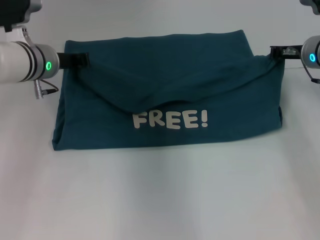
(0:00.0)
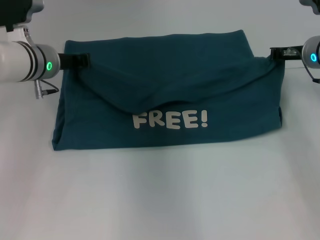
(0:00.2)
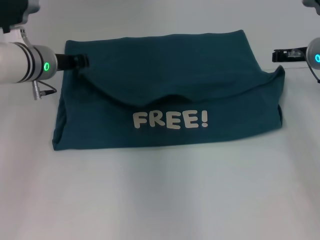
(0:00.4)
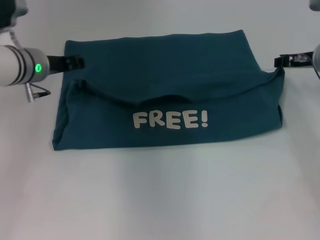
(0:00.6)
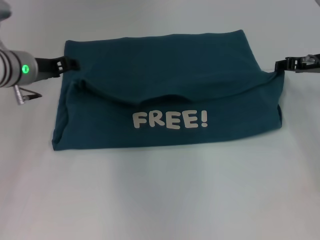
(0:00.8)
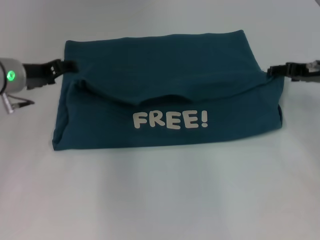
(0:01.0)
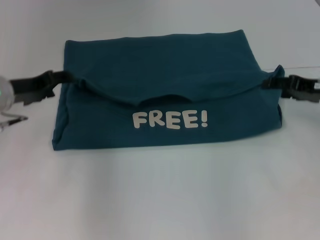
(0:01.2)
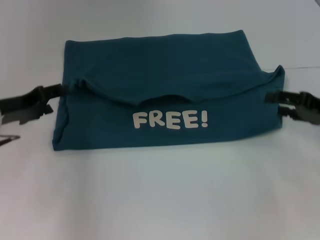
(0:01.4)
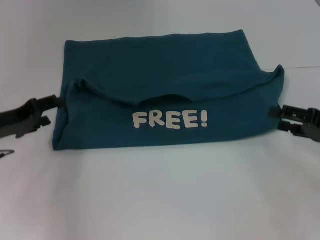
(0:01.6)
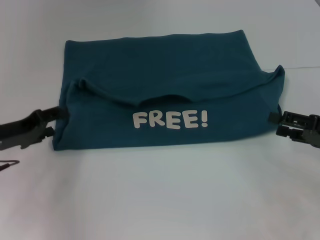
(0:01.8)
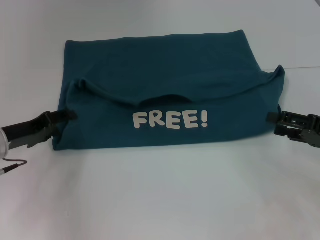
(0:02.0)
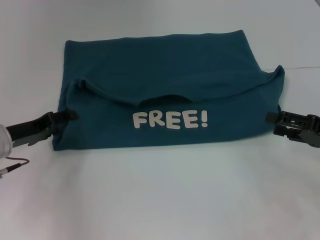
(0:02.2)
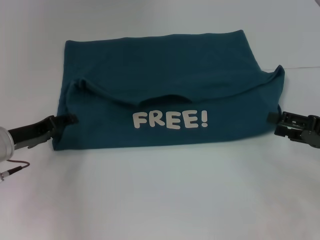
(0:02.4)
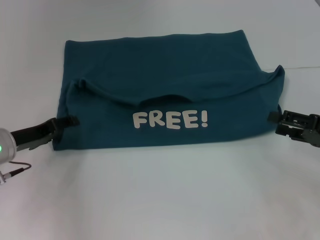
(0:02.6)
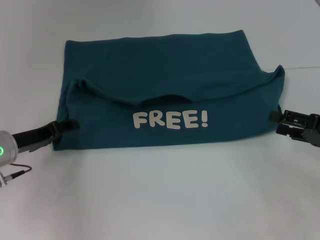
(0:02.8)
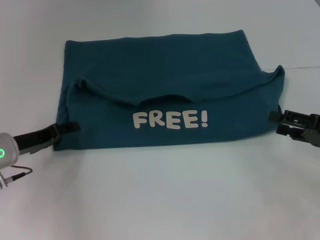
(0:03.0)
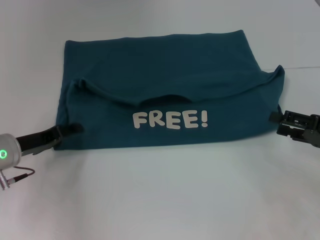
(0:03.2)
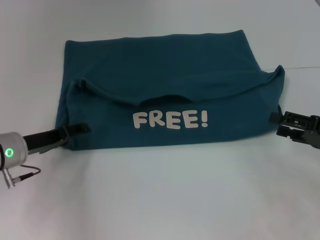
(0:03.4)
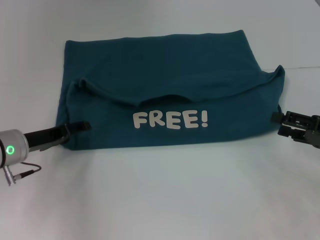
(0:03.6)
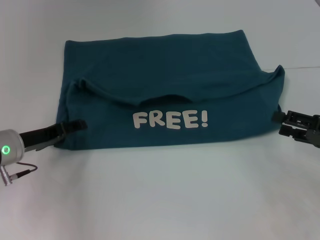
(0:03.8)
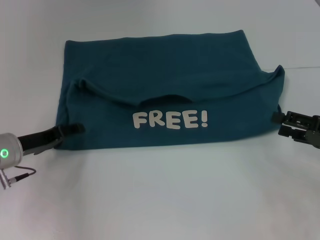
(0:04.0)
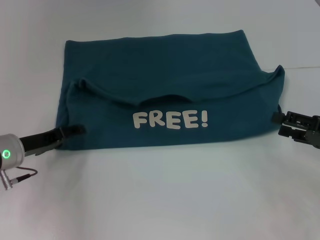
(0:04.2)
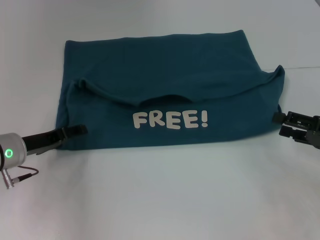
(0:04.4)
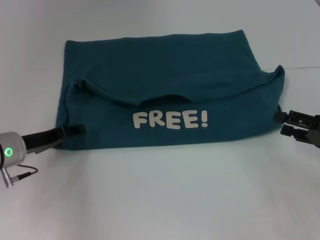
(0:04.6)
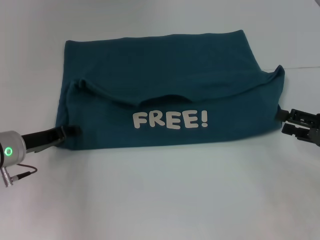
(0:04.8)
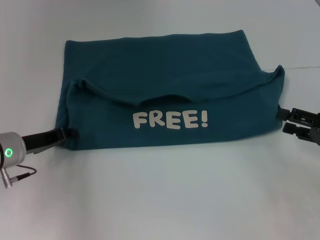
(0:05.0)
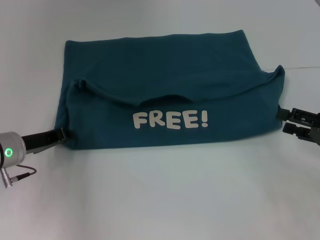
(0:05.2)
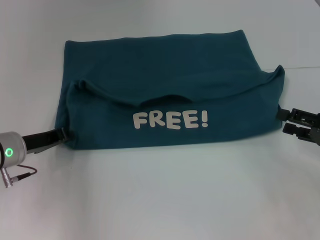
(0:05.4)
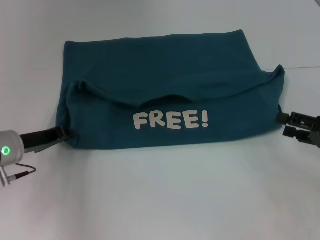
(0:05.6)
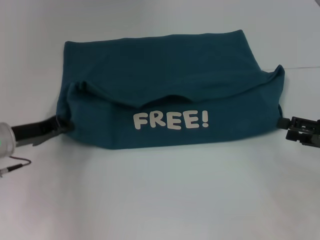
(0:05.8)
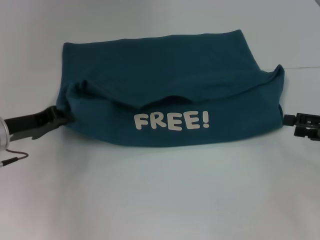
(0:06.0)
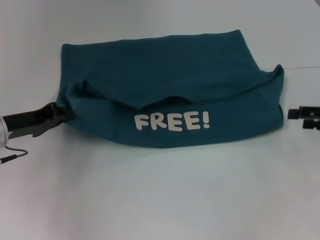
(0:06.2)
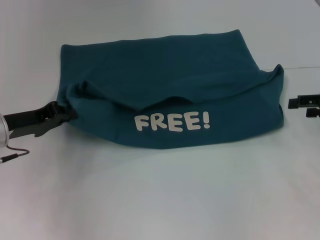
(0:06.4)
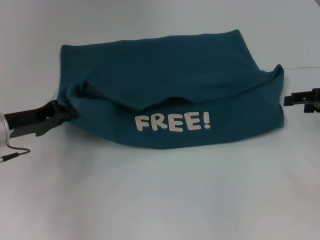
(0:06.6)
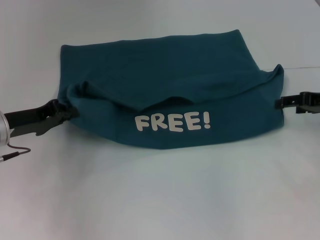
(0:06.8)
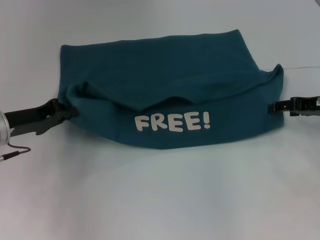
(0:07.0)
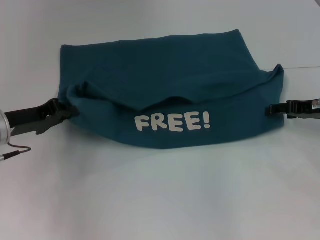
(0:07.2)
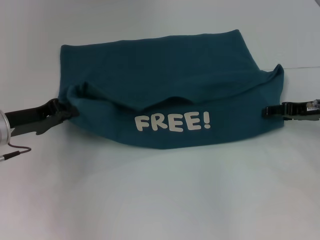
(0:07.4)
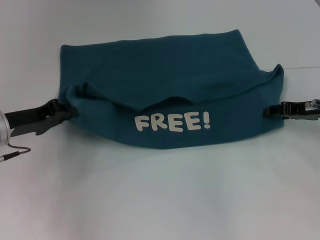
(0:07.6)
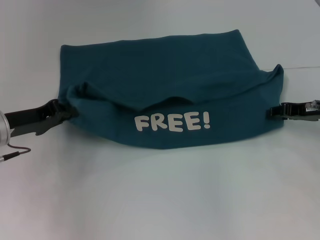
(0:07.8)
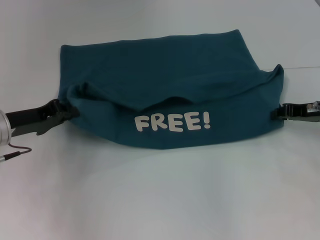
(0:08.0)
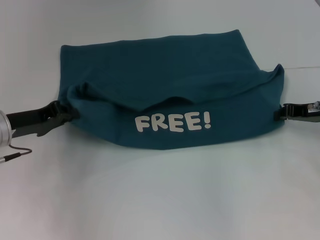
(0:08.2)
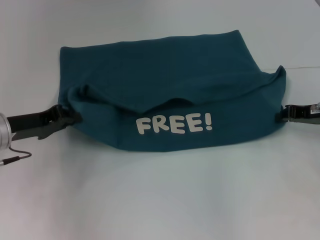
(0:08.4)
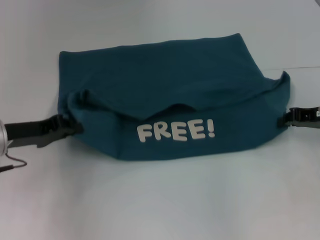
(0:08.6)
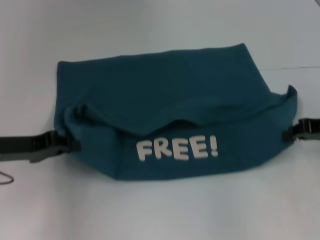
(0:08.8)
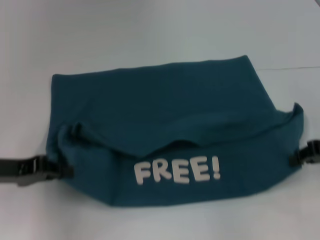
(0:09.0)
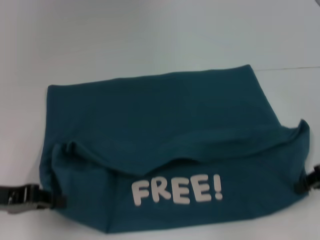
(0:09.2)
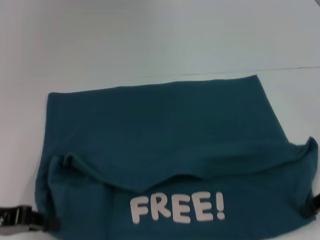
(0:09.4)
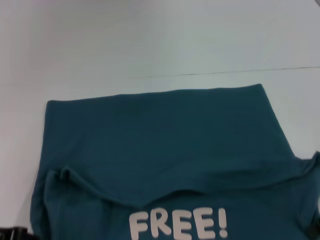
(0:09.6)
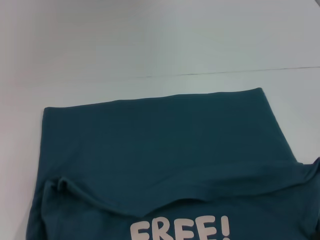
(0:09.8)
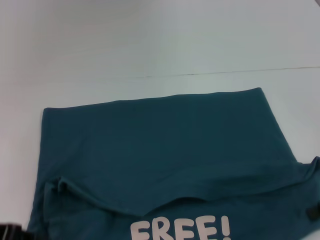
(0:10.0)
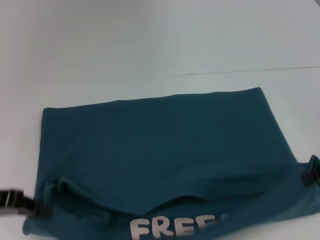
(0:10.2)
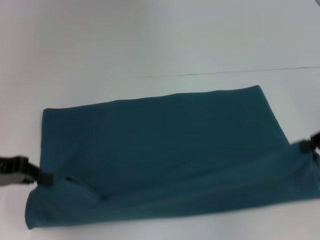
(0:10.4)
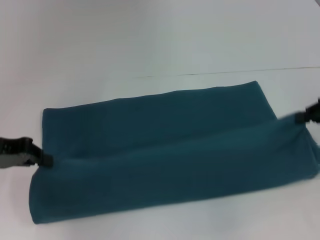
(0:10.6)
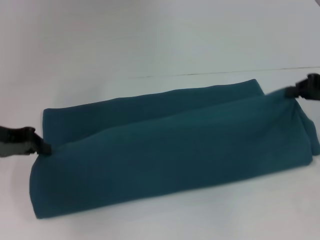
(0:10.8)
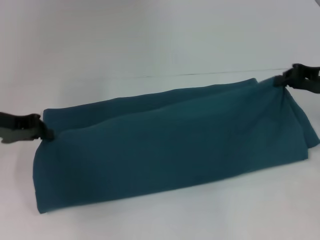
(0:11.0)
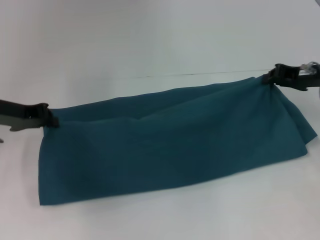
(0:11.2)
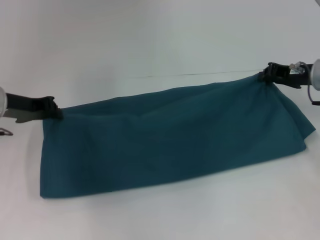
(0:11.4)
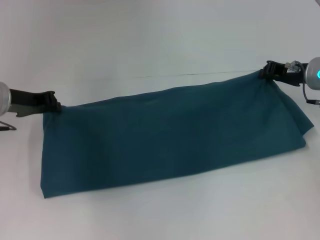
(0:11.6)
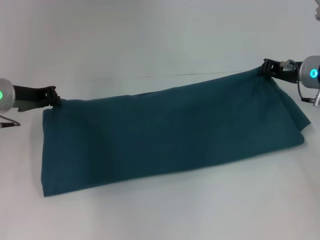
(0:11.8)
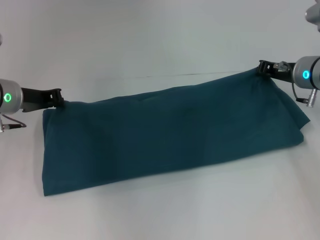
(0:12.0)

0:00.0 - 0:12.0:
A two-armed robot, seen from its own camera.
Step, 0:00.6 - 0:09.6: Pull the clothes with your left hand.
Step, 0:00.6 - 0:09.6: Pull the clothes with your right hand.
0:00.0 - 0:01.6: The left gripper is displaced backward, to the left and downward by about 15 cm, and opens its fingers; the right gripper goes some 20 cm backward and to the right, and opens.
0:01.6 - 0:04.4: The grippers stay close to where they were, moving slightly.
0:04.4 - 0:06.0: The left gripper closes up.
0:06.0 - 0:07.6: The right gripper moves forward and to the left, roughly 10 cm.
0:07.6 - 0:09.0: The grippers both shift backward by roughly 5 cm. The right gripper closes its fingers.
0:09.0 - 0:10.4: The left gripper travels backward and back again, approximately 5 cm each way.
0:10.4 - 0:12.0: The left gripper goes roughly 10 cm forward and to the right; the right gripper goes some 15 cm forward and to the left.

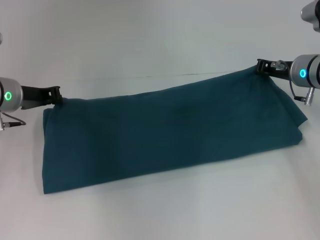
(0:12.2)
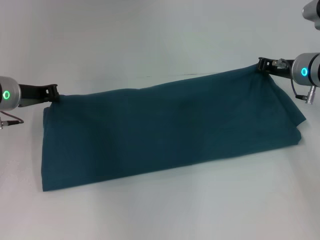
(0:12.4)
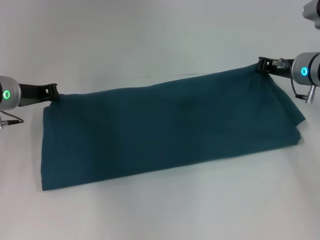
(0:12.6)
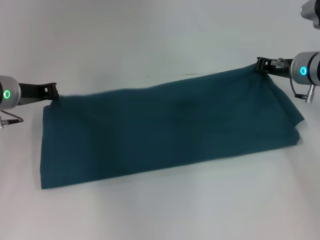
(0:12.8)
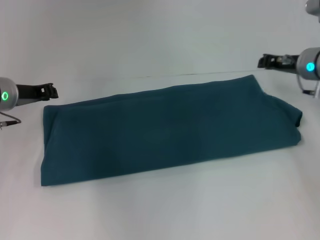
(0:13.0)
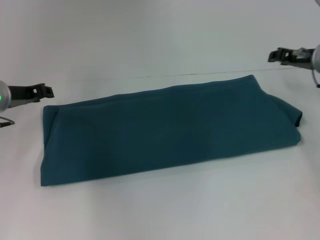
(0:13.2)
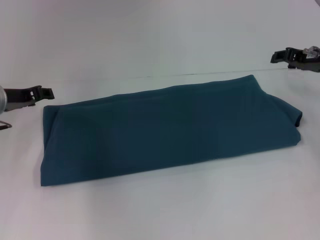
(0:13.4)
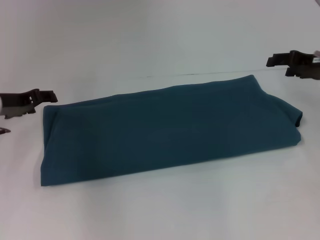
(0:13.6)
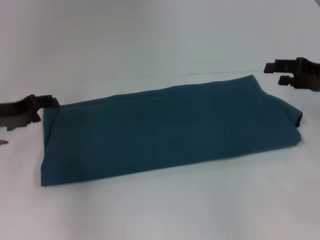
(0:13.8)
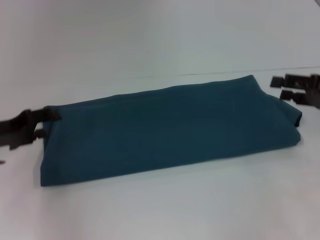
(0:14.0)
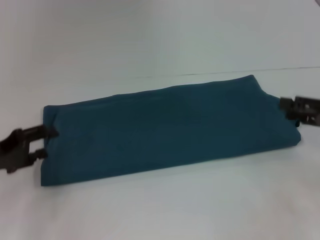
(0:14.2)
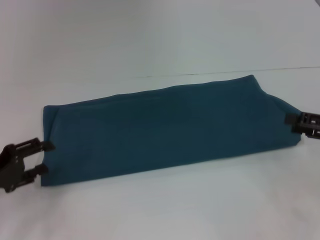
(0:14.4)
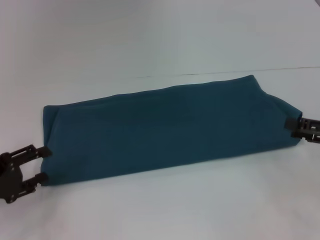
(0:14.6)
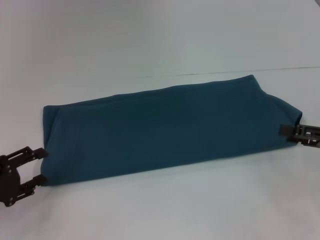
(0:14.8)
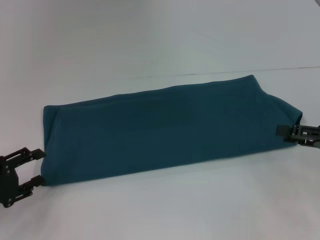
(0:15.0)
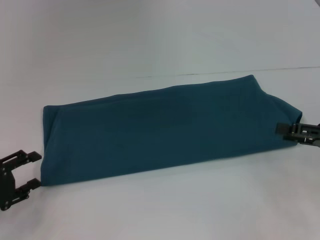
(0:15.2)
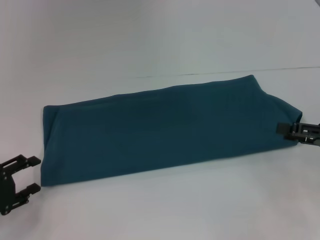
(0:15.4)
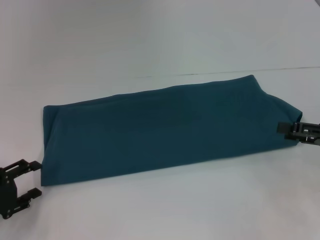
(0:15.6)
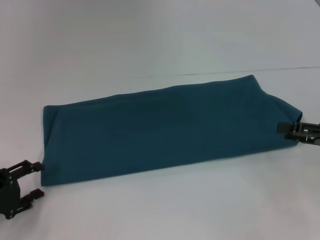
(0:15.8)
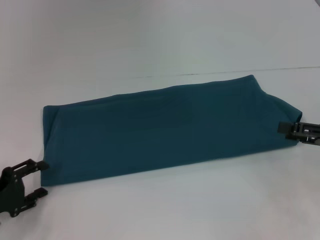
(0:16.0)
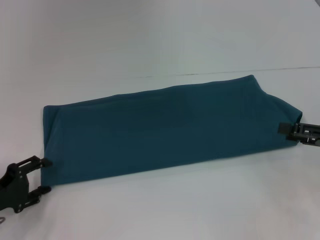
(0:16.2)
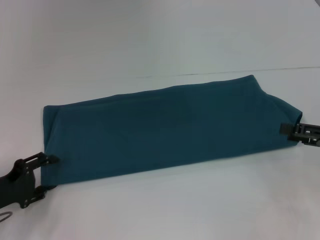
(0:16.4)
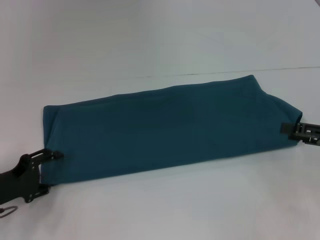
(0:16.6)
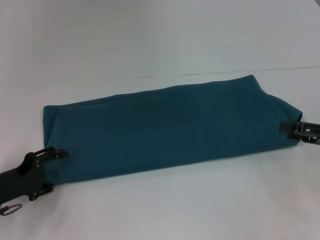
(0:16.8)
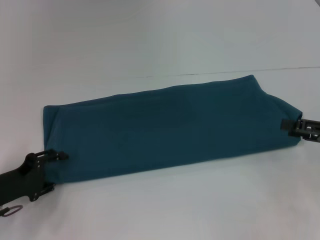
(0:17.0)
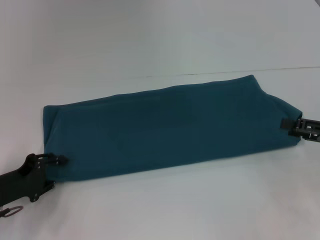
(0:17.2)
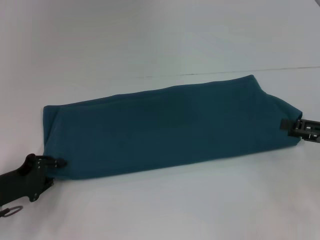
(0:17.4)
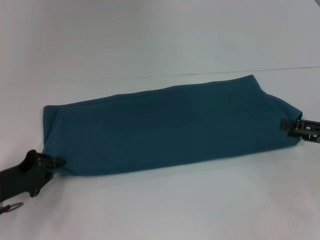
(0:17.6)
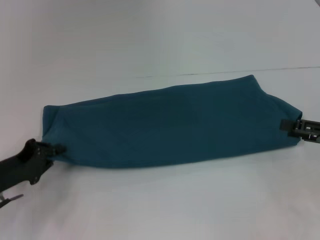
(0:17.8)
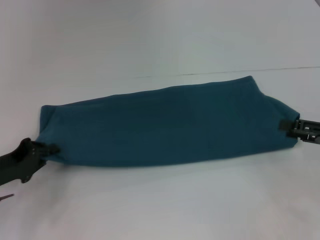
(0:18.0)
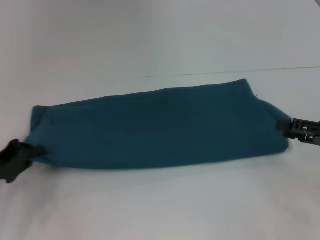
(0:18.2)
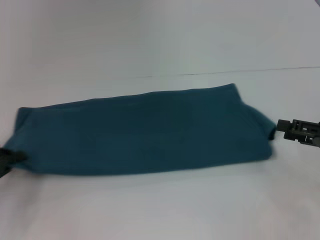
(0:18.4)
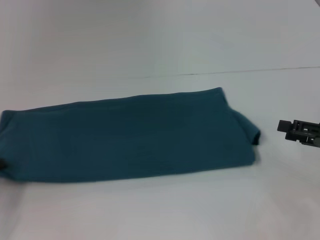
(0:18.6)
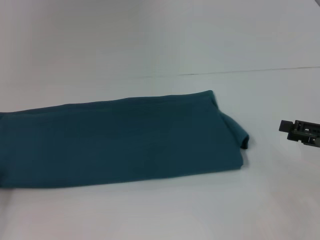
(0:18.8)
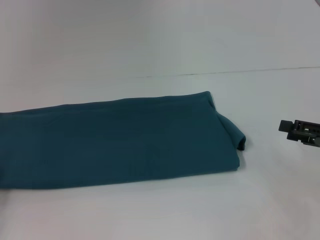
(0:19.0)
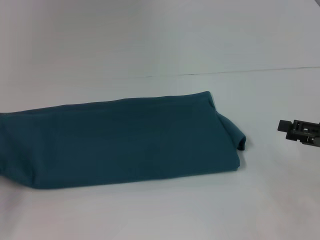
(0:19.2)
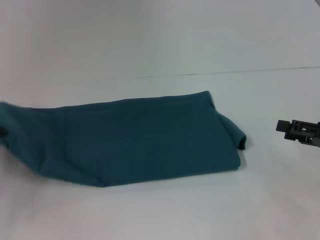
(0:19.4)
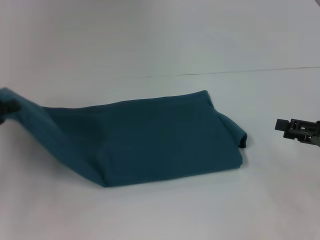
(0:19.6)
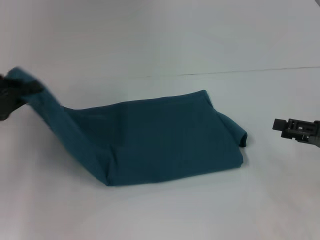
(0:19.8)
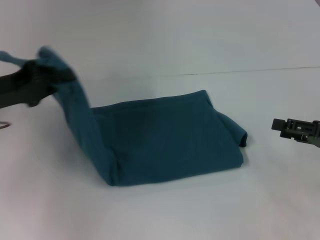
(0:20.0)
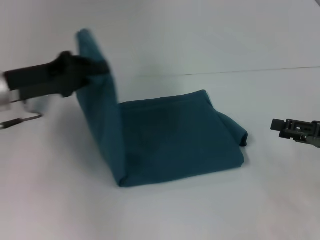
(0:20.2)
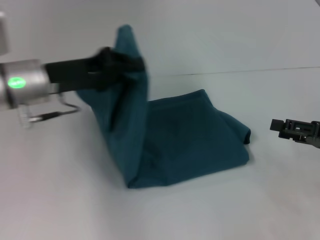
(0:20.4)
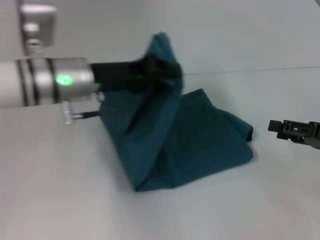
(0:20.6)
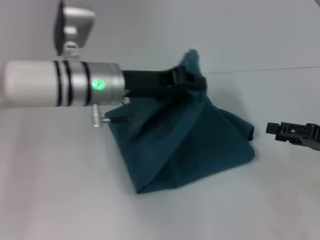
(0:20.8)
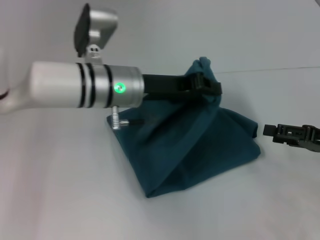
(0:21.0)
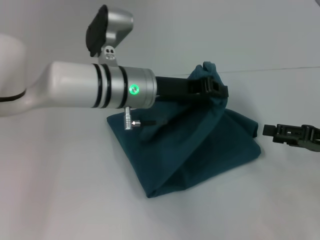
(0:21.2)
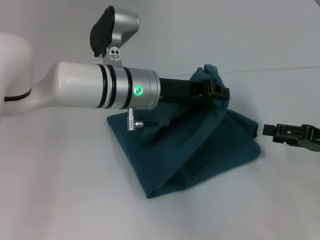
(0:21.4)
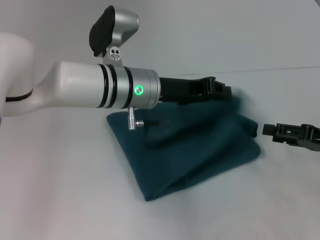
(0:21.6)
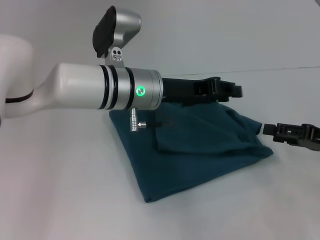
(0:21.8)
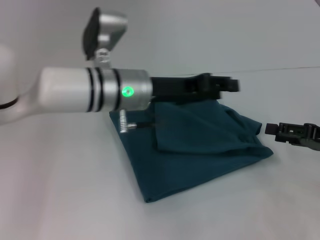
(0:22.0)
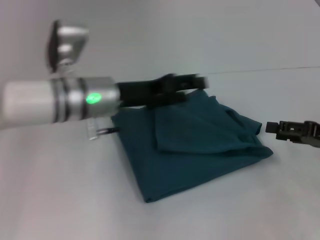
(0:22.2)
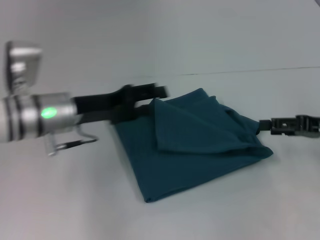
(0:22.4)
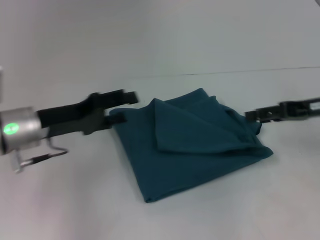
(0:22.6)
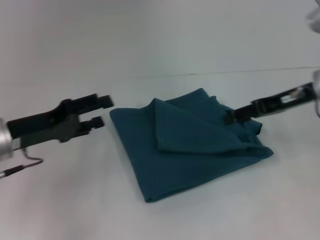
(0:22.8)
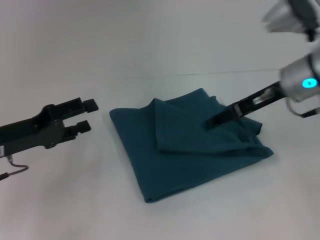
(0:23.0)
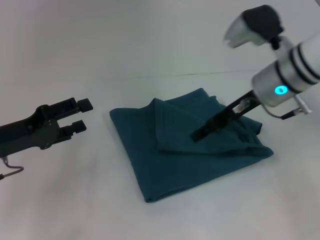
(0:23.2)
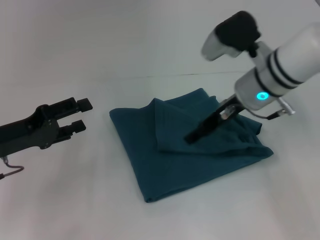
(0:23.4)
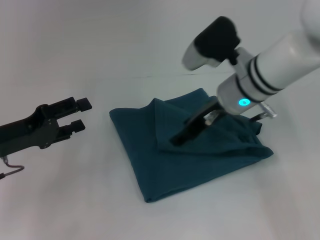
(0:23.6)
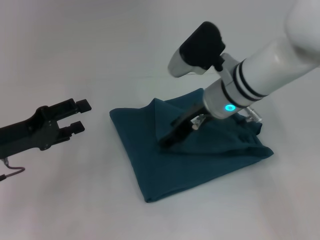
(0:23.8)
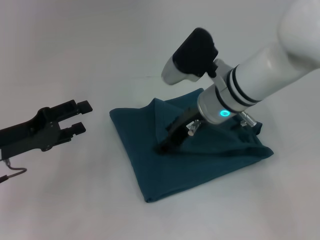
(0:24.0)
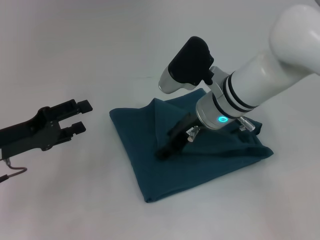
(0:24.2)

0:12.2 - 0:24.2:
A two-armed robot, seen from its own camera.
Step, 0:12.2 - 0:21.8: Fold the clothes to the left.
0:12.2 - 0:13.8: The right gripper goes about 10 cm to the right and backward, and opens up. Meanwhile the left gripper changes place by roughly 5 cm, and opens up.
0:13.8 - 0:15.2: The left gripper travels backward and downward by some 15 cm. The right gripper shifts approximately 10 cm backward.
0:15.2 - 0:16.6: There are only small adjustments of the grippers.
0:16.6 - 0:18.2: The left gripper closes.
0:18.2 - 0:19.8: The left gripper is displaced upward by approximately 10 cm.
0:19.8 - 0:21.2: The left gripper travels to the right by approximately 25 cm.
0:21.2 - 0:22.6: The left gripper heads to the left, covering roughly 15 cm, and opens its fingers, while the right gripper is displaced upward and forward by approximately 10 cm.
0:22.6 - 0:24.2: The right gripper is displaced to the left by approximately 20 cm, while the left gripper goes some 5 cm to the left.
